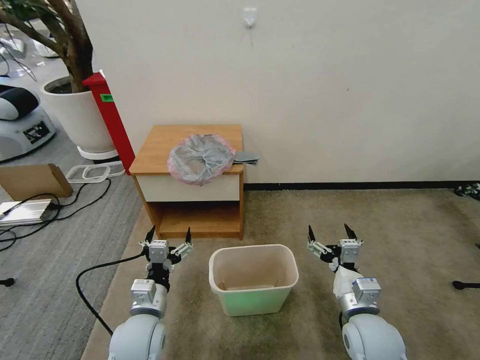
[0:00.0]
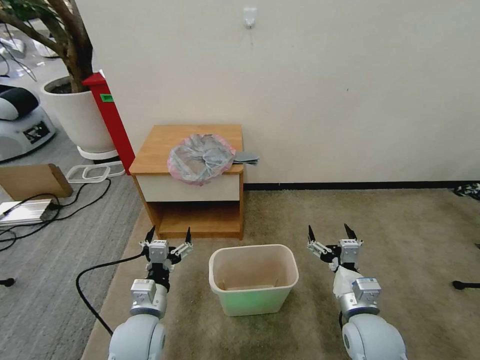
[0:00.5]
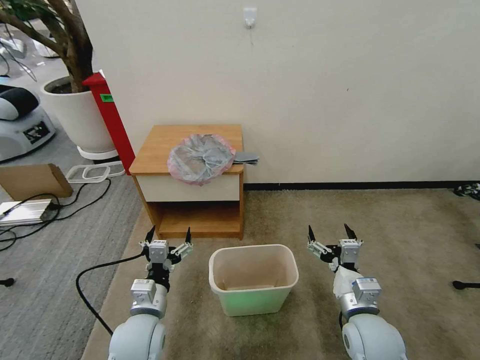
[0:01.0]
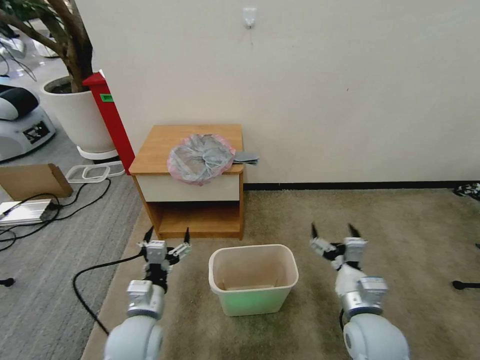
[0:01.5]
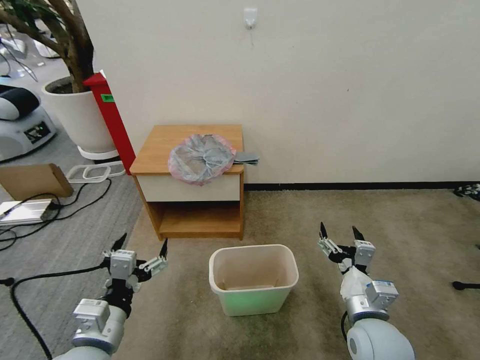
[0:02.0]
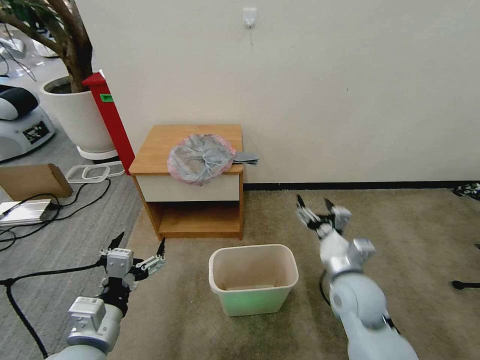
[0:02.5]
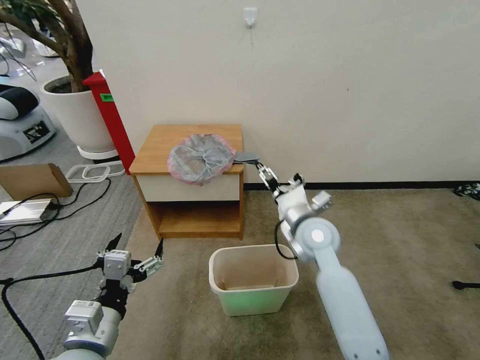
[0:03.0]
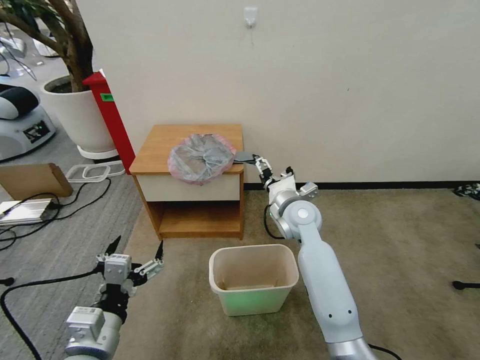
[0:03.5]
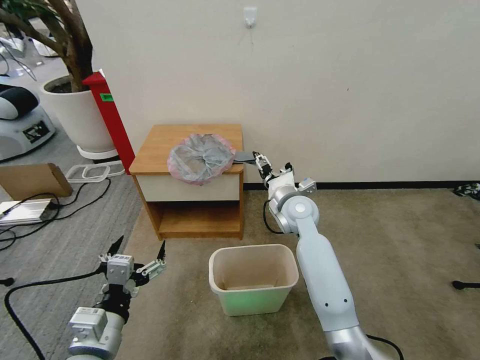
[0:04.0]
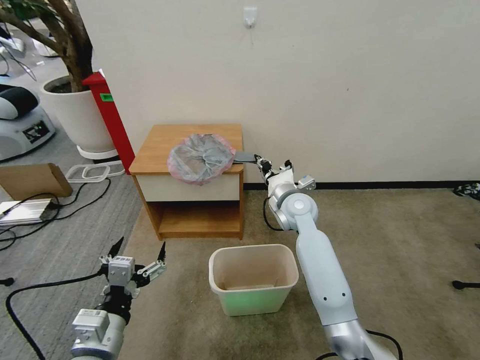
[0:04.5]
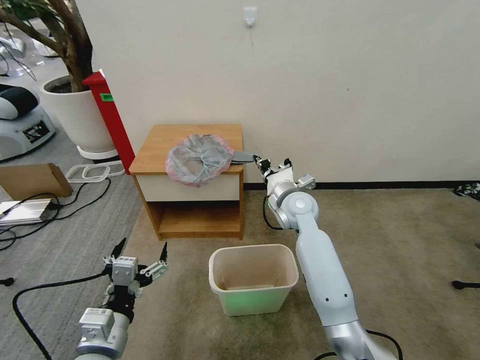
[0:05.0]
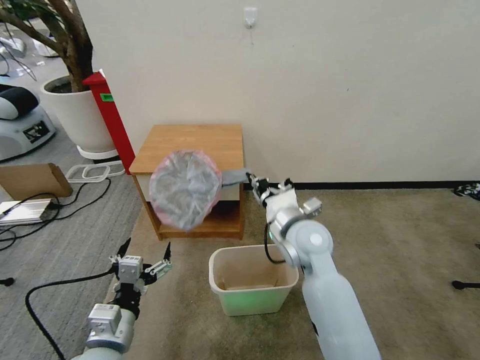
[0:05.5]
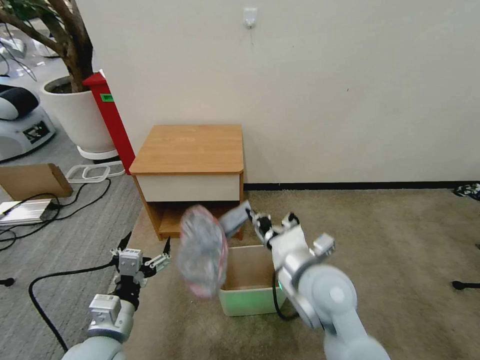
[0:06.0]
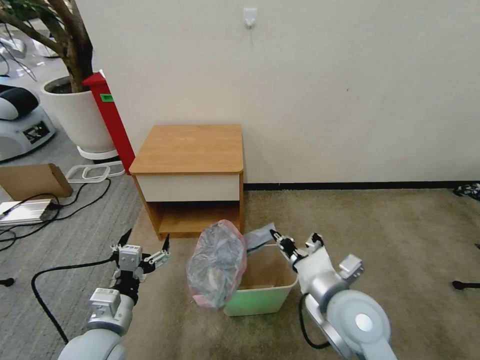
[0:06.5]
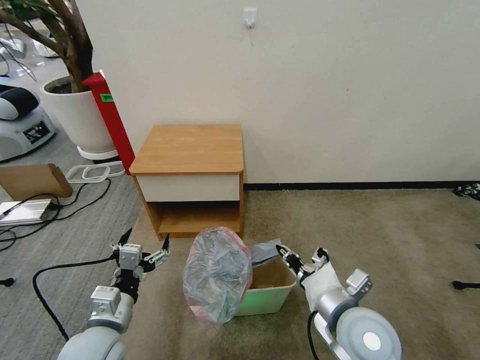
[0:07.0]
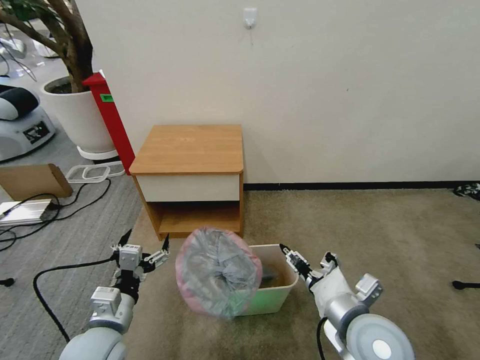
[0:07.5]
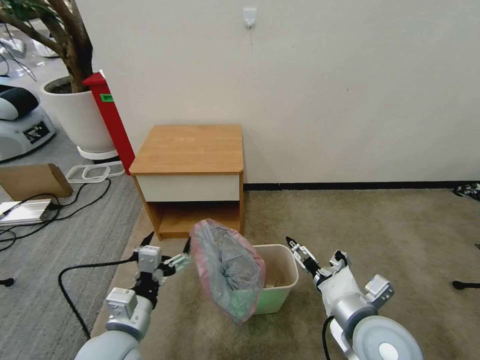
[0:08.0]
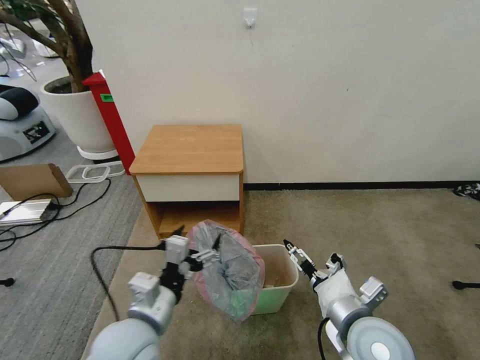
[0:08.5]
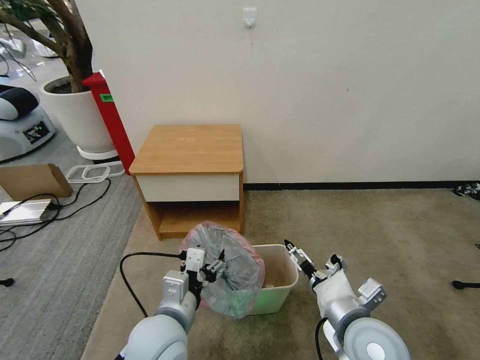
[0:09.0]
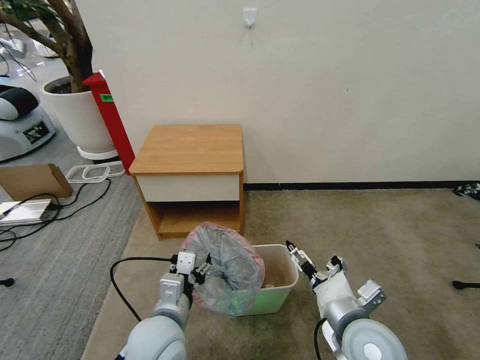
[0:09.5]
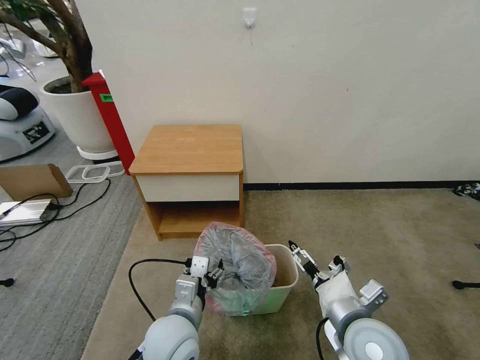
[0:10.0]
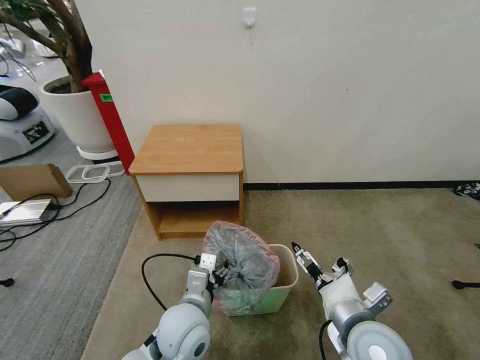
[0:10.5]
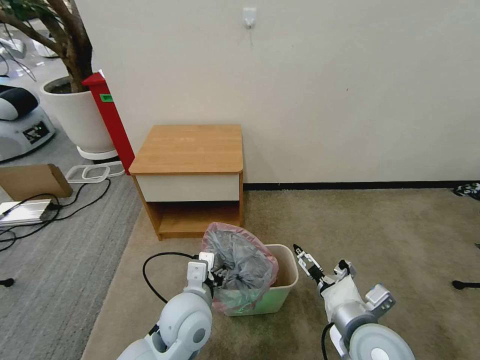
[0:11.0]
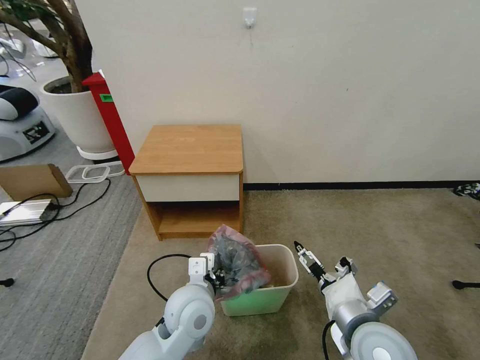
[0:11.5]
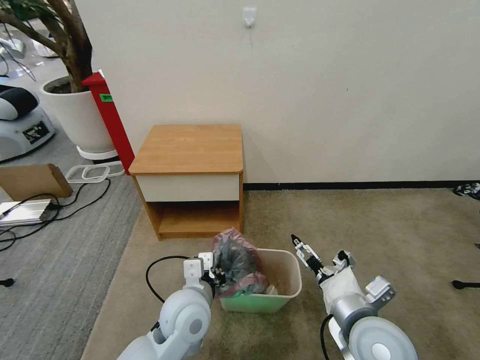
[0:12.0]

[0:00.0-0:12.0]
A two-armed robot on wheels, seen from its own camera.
Task of the whole recording: Pick up the garbage bag from the table and place it over the trash can.
2.0 to 4.0 s: The right gripper heads forward, covering some 25 cm.
4.0 to 6.0 s: The right gripper travels backward by about 20 cm, and closes up.
6.0 to 8.0 s: The right gripper goes some 10 cm to the right and backward, and opens.
8.0 to 10.0 s: The left gripper moves to the right, about 10 cm.
10.0 to 12.0 s: The left gripper closes its fingers.

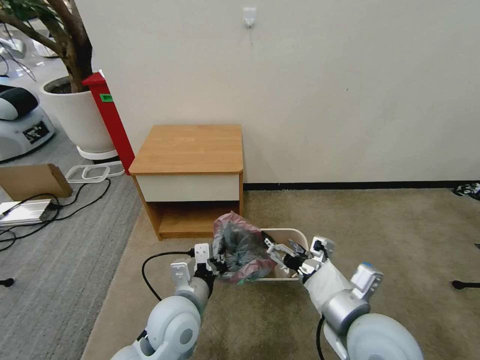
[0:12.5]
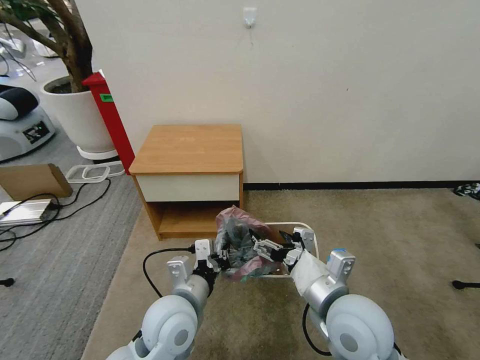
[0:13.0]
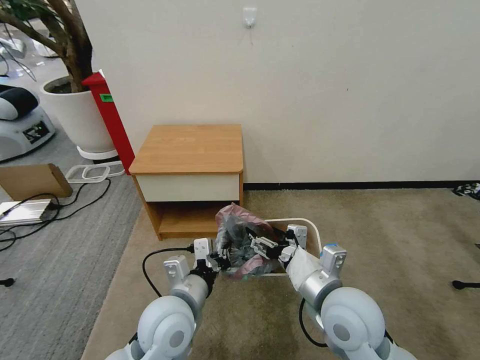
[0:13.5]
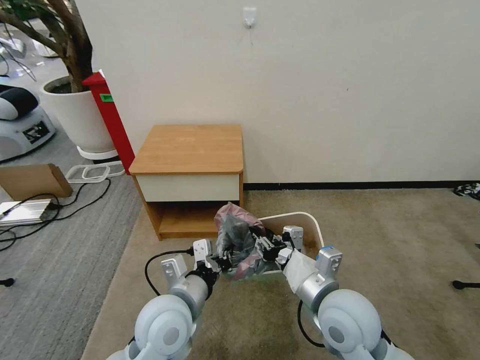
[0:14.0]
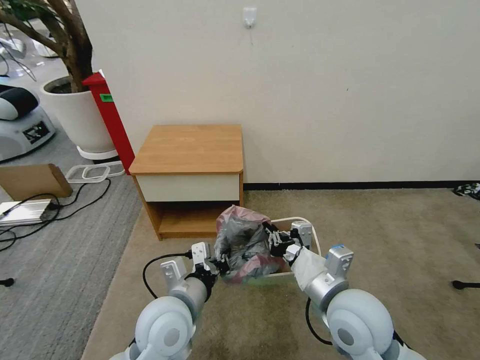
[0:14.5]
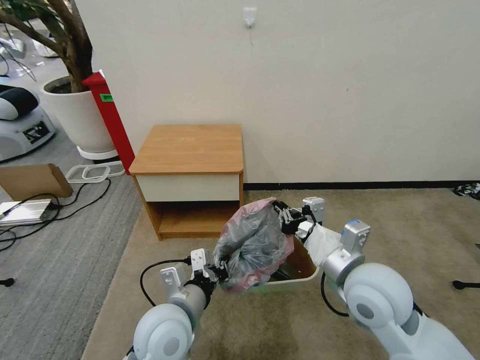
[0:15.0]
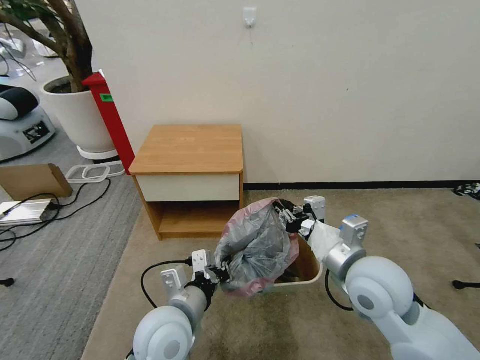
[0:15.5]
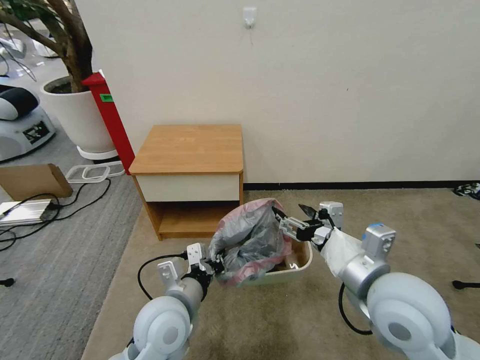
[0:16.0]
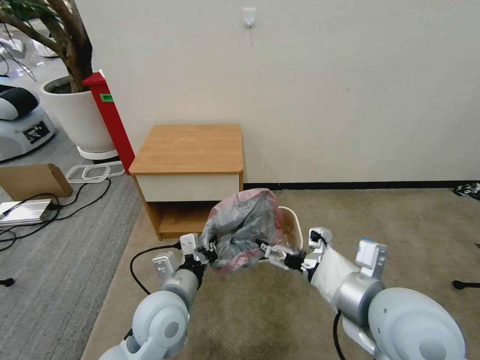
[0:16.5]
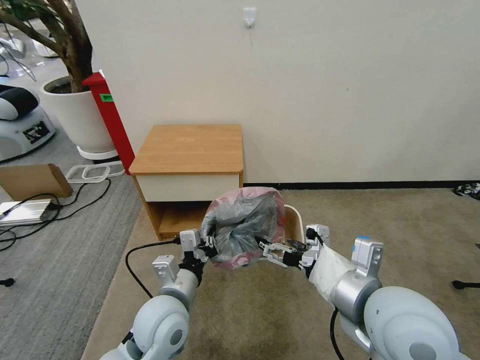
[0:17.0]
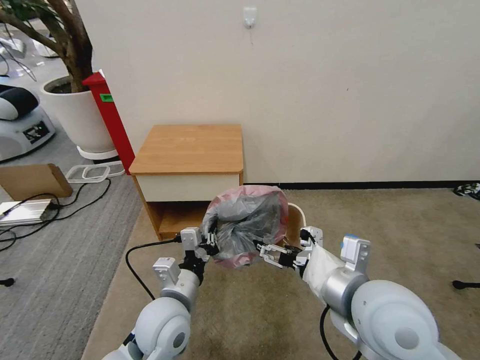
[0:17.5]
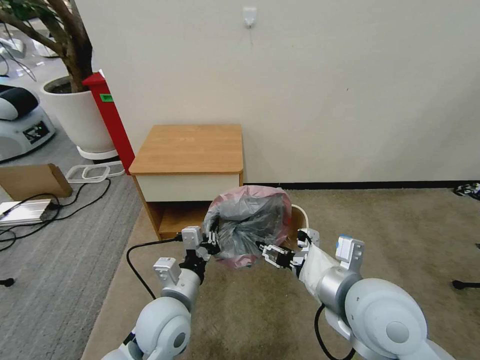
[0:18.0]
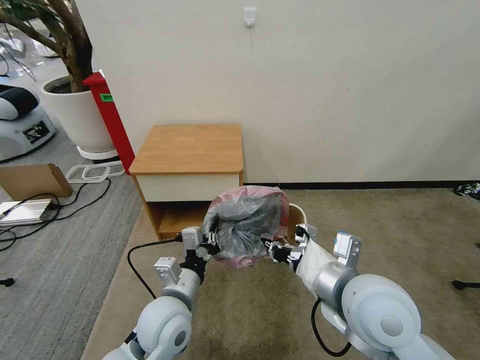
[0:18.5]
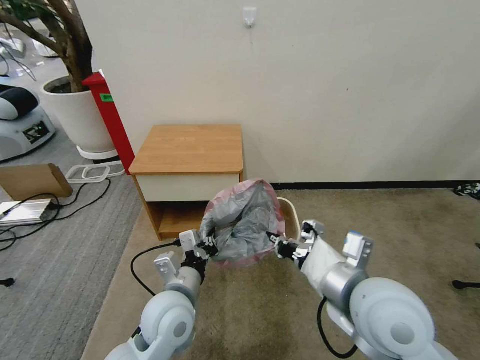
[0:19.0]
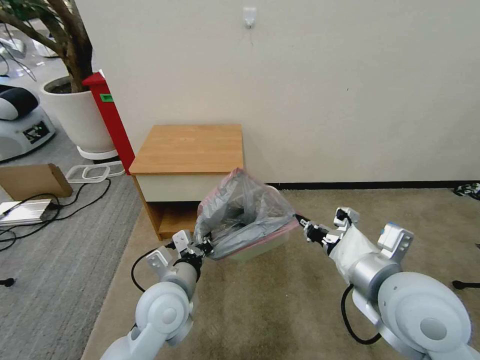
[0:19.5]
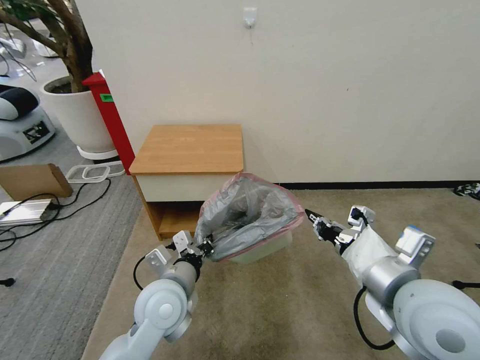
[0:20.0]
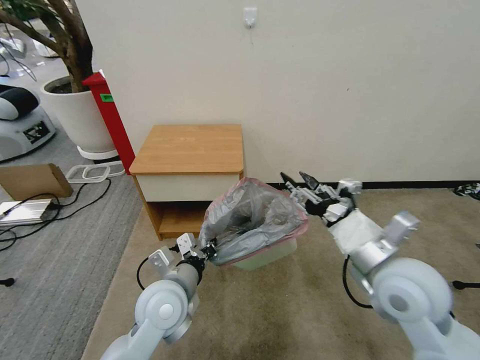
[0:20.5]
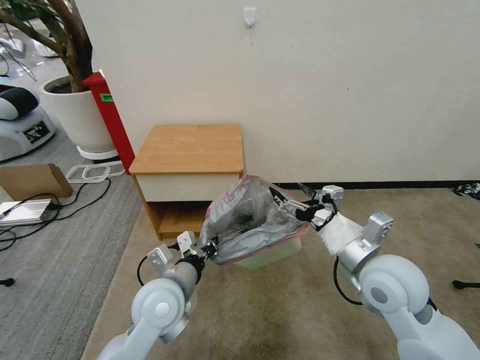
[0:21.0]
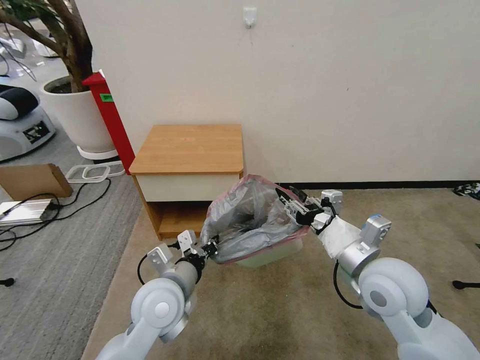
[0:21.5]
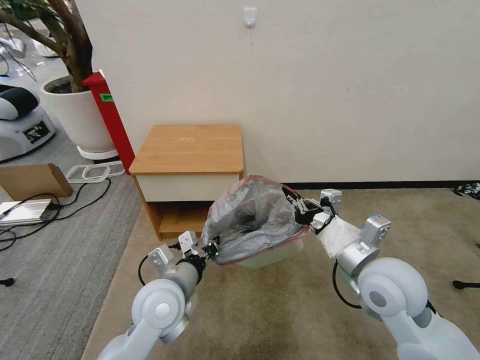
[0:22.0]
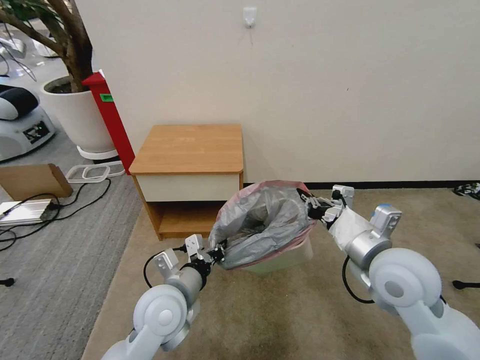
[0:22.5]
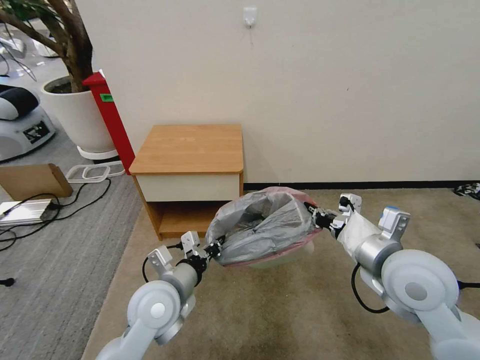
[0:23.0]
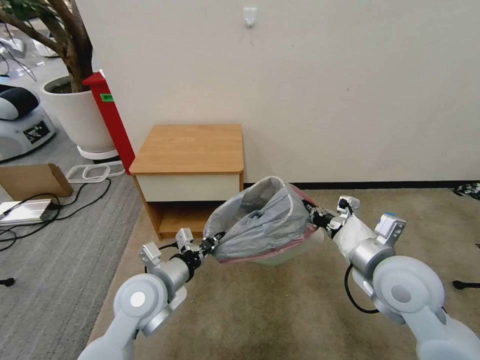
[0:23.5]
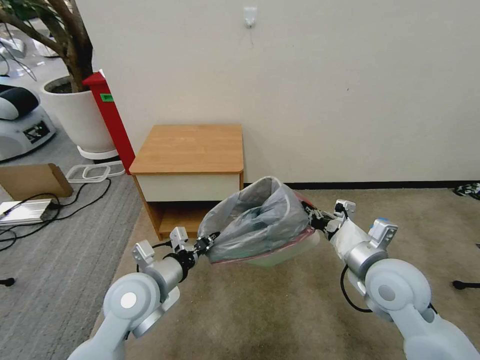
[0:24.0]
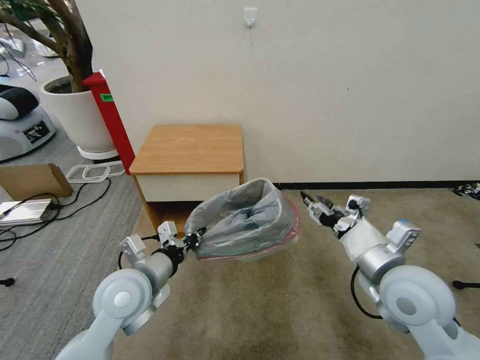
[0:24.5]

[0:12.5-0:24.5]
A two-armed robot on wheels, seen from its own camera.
Task of the whole recording: Pick up the garbage bag from the table and place it over the trash can.
12.5 to 14.5 s: The right gripper closes its fingers.
14.5 to 16.5 s: The right gripper is displaced upward by roughly 10 cm, and opens.
16.5 to 18.5 s: The right gripper closes up.
18.5 to 20.5 s: The right gripper travels to the right by about 5 cm, and opens up.
20.5 to 22.5 s: The right gripper closes.
22.5 to 24.5 s: The left gripper travels to the left by approximately 5 cm. Meanwhile the right gripper opens its fingers.

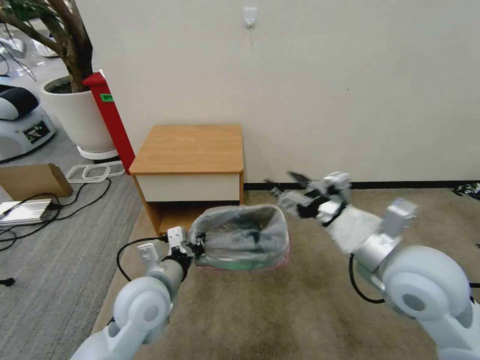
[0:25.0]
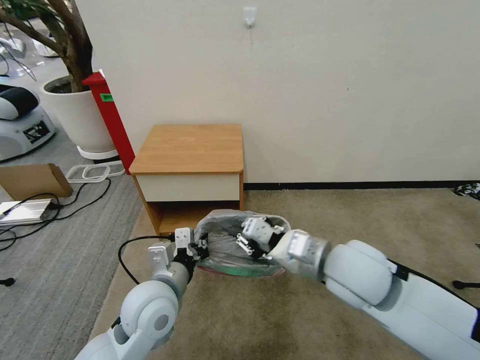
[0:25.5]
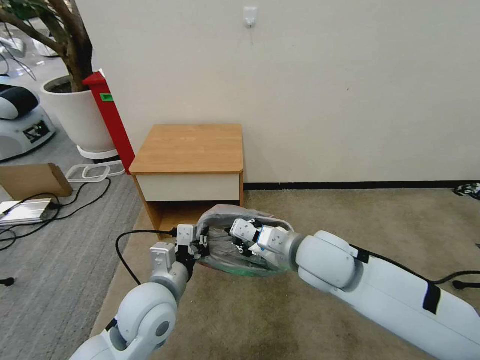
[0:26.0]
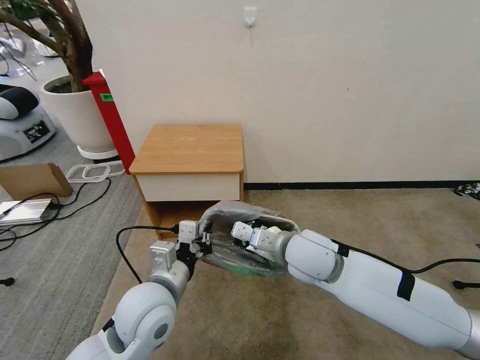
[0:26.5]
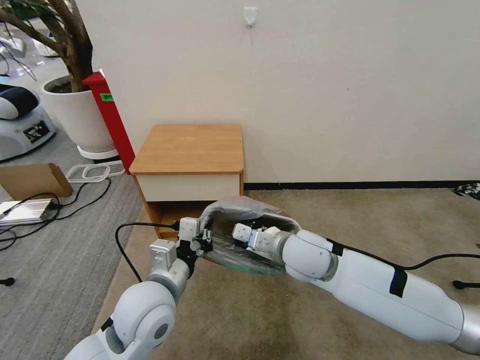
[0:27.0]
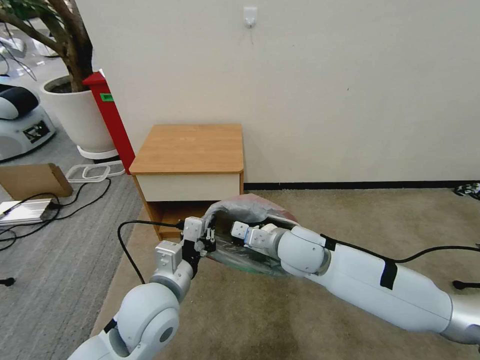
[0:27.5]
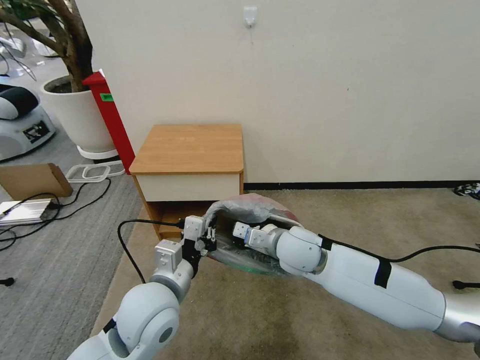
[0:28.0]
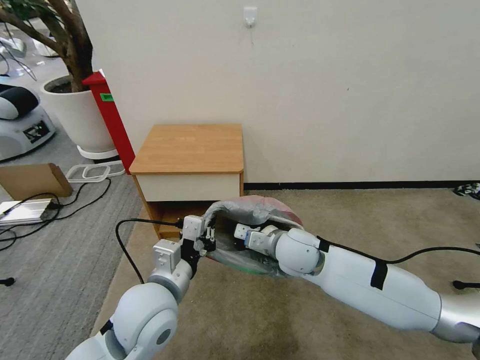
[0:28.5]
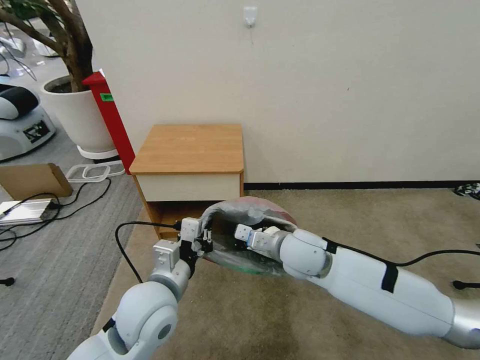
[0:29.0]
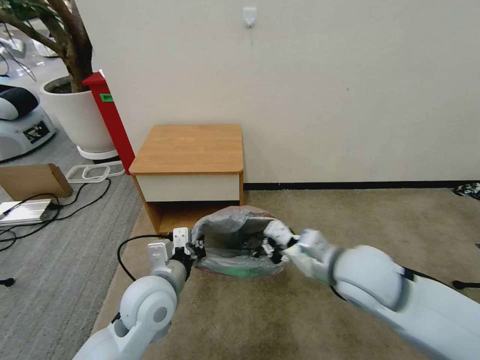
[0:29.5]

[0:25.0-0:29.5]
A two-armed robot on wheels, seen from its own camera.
Task of the whole recording: Pick up the garbage bag from the table and place it over the trash can.
25.0 to 27.0 s: The right gripper is displaced to the left, downward and forward by roughly 20 cm, and closes up.
27.0 to 29.5 s: The right gripper is displaced to the right and backward by roughly 10 cm.
